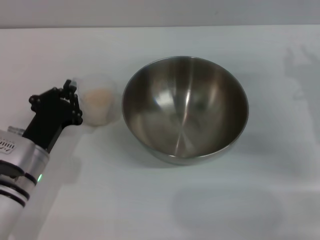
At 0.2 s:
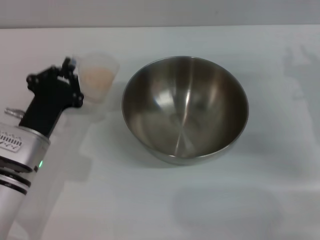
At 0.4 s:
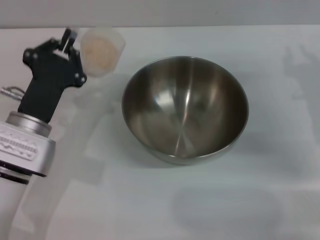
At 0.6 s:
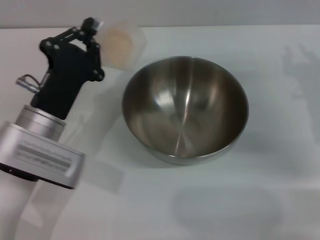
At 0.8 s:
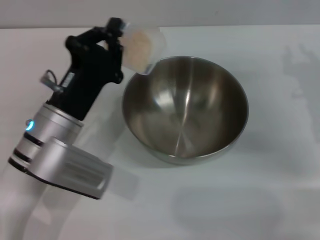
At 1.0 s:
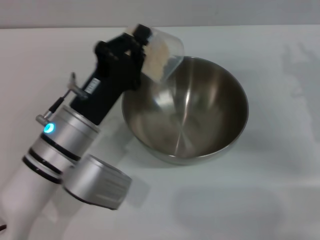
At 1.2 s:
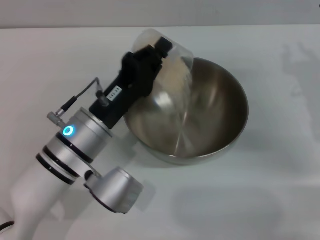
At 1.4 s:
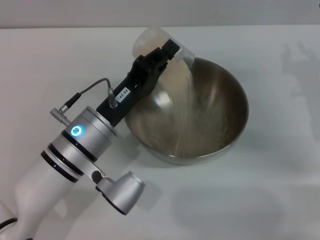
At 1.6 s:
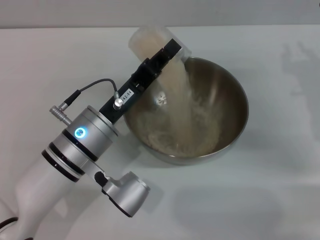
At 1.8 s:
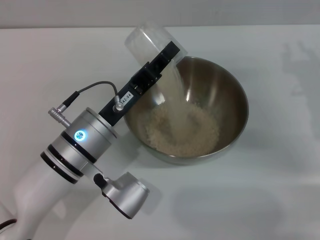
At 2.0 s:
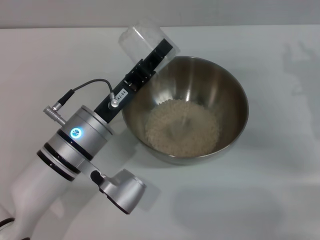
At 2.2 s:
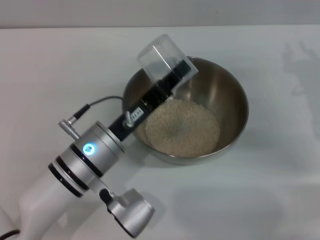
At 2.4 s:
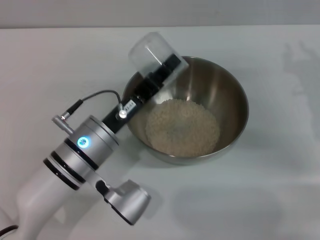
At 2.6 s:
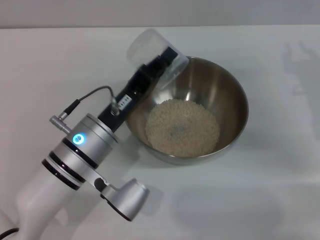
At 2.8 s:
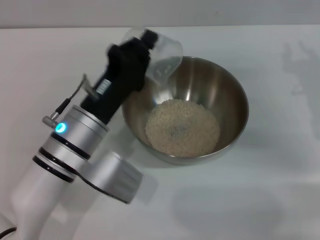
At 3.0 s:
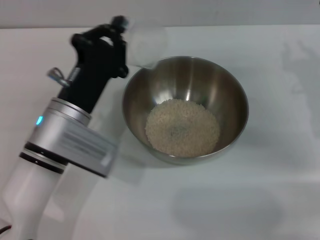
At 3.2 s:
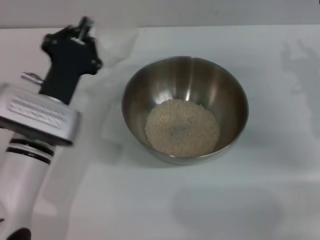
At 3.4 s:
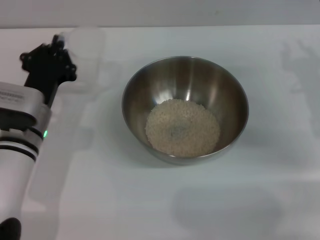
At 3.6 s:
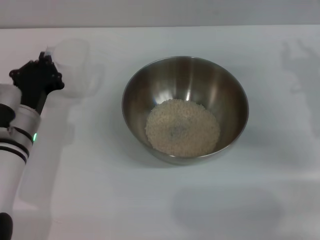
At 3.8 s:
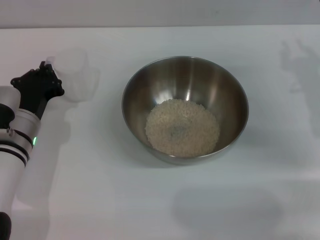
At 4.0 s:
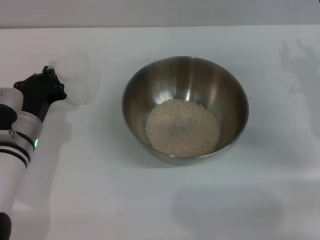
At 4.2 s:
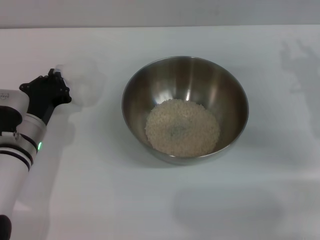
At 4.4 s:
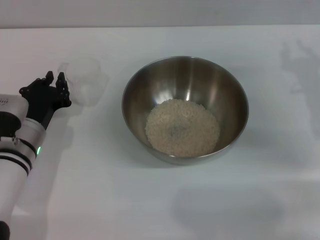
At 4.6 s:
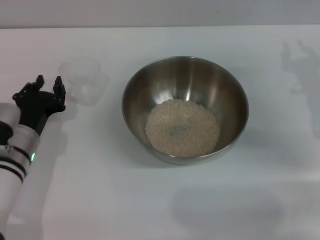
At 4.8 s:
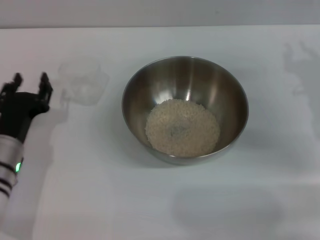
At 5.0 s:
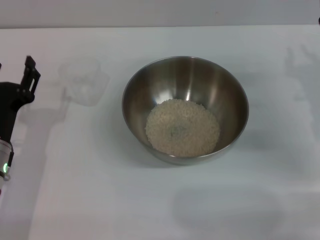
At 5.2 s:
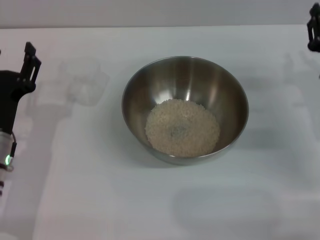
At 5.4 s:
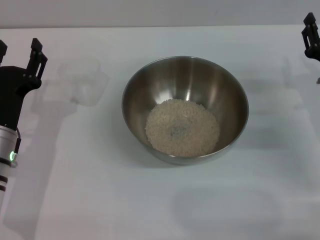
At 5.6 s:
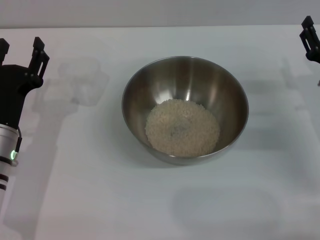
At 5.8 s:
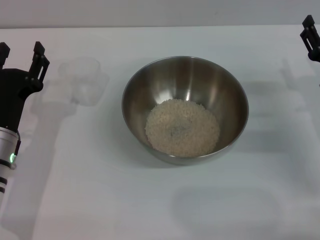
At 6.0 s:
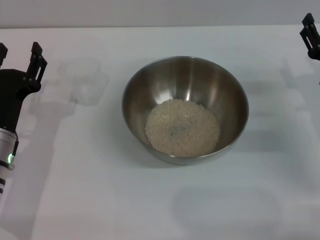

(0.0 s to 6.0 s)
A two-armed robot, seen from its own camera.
Task of the whole recording: Place the bowl in the middle of the table with one hand and pour the rice from the grain cup into it with the other hand.
Step, 0.4 s - 2.8 s: Pour the rice from the cup into the bowl with the left gripper.
Step, 3.0 s - 4.6 s: Place the cup on the table with the left gripper.
0.0 s - 1.6 s: The left gripper shifts about 10 cm to the right and upward.
3.0 s - 4.4 s: The left gripper travels to the left and downward by roughly 10 cm.
4.4 s - 6.0 s: The left gripper changes place by approximately 5 cm, and opens its fingers. The right gripper goes some 5 cm downward, and opens its fingers.

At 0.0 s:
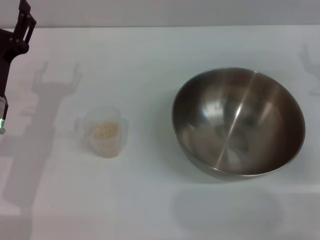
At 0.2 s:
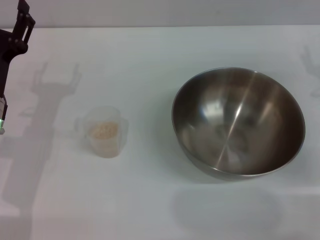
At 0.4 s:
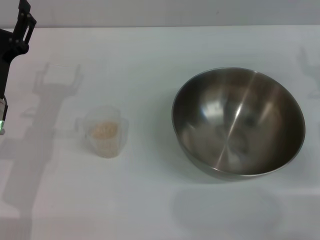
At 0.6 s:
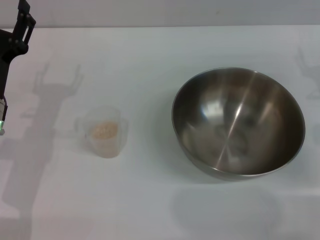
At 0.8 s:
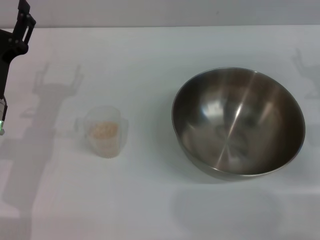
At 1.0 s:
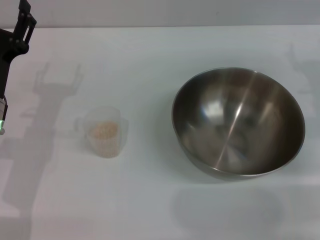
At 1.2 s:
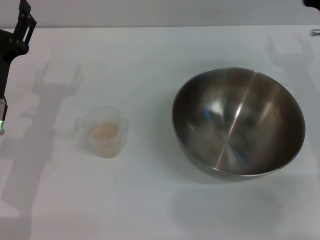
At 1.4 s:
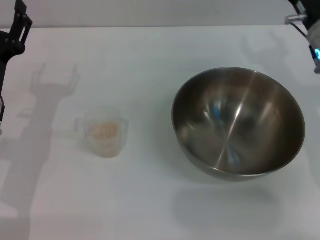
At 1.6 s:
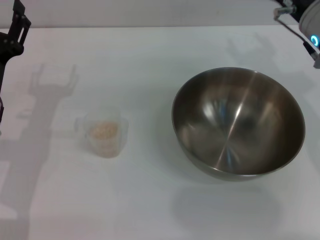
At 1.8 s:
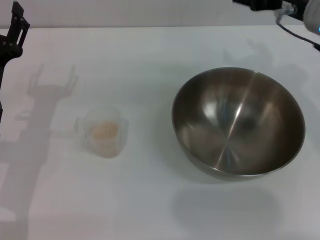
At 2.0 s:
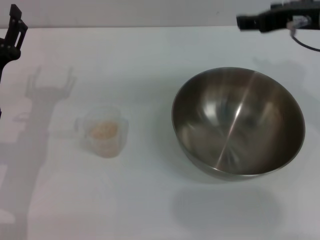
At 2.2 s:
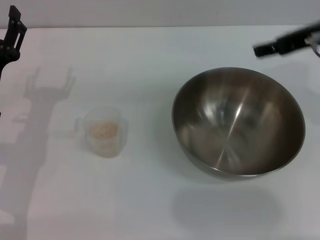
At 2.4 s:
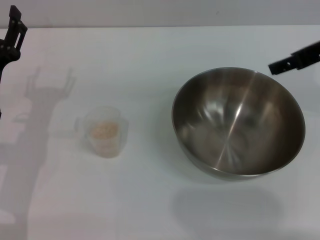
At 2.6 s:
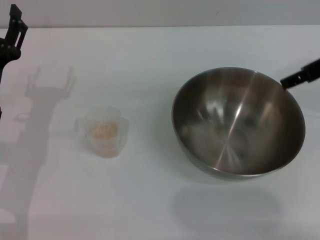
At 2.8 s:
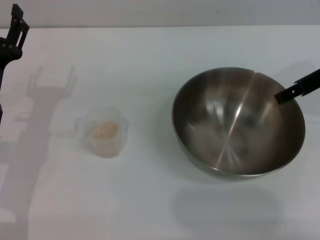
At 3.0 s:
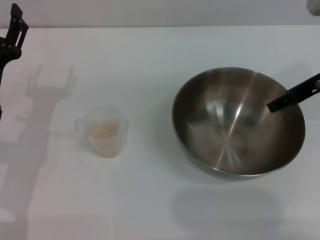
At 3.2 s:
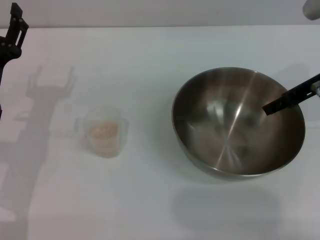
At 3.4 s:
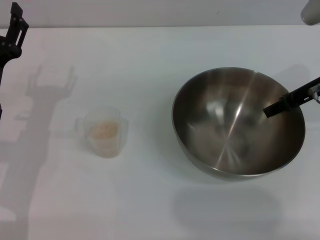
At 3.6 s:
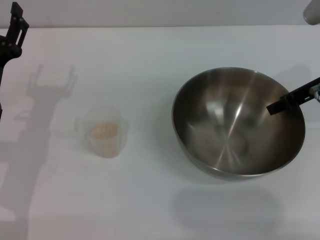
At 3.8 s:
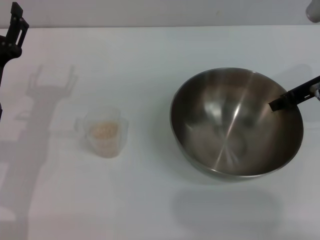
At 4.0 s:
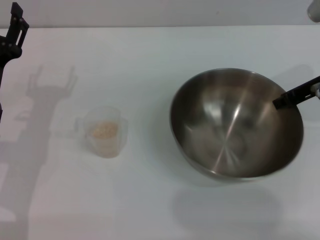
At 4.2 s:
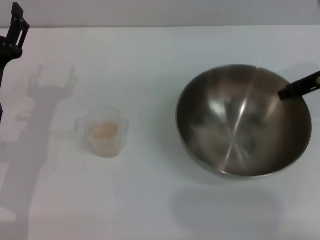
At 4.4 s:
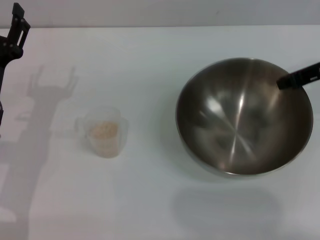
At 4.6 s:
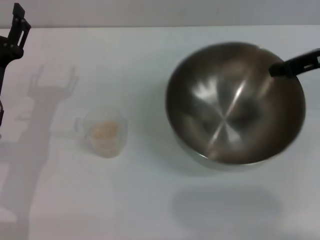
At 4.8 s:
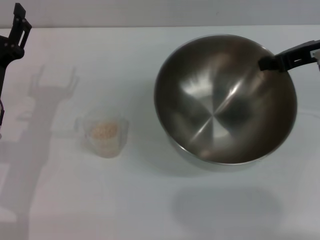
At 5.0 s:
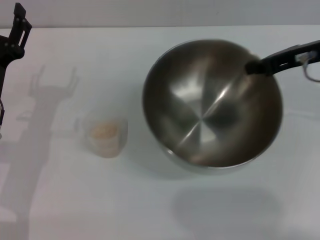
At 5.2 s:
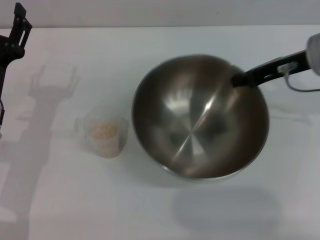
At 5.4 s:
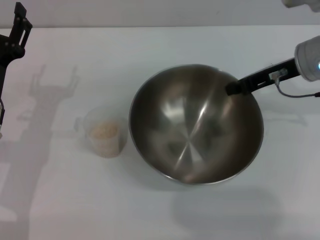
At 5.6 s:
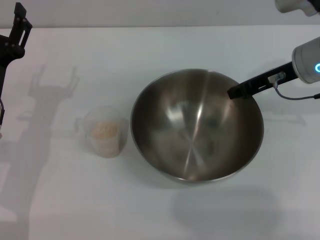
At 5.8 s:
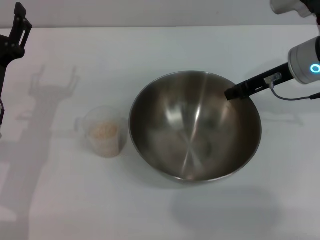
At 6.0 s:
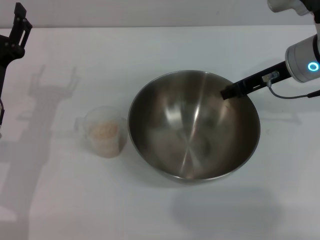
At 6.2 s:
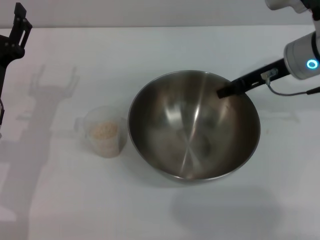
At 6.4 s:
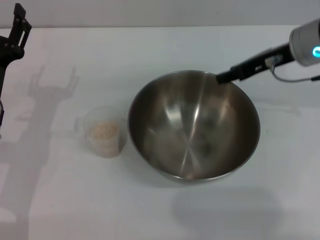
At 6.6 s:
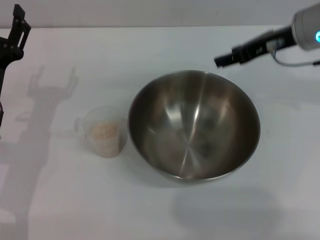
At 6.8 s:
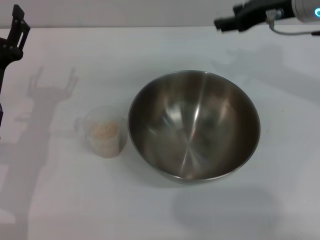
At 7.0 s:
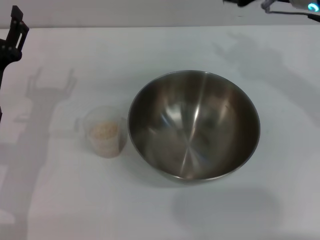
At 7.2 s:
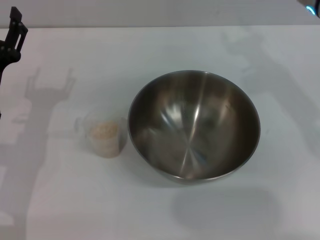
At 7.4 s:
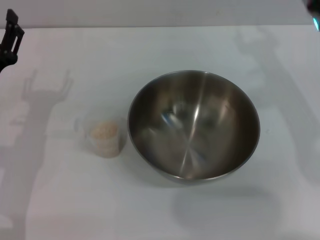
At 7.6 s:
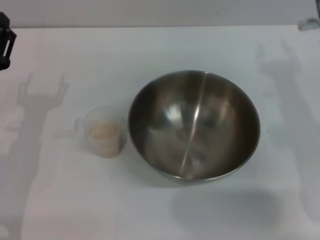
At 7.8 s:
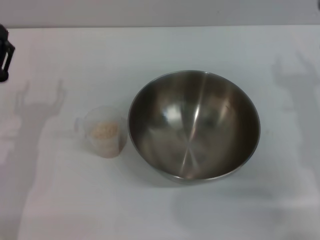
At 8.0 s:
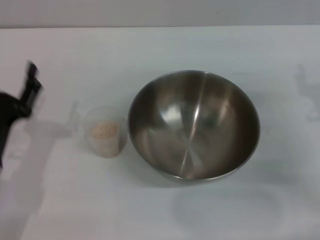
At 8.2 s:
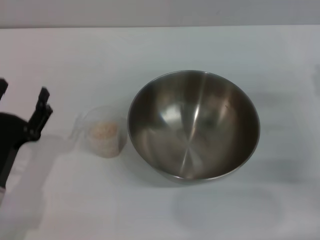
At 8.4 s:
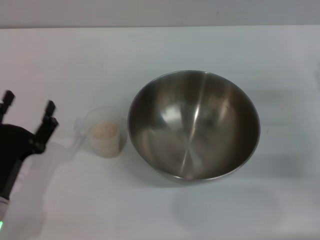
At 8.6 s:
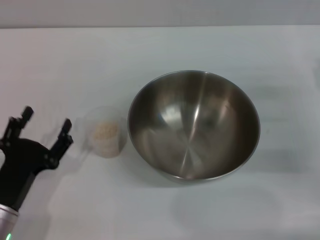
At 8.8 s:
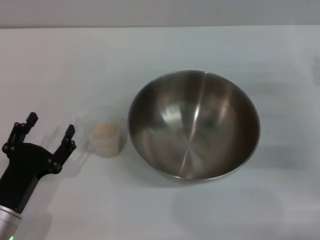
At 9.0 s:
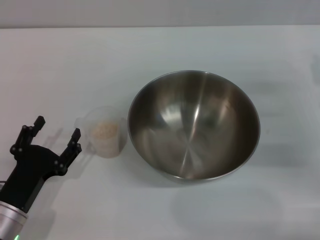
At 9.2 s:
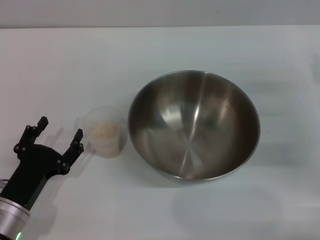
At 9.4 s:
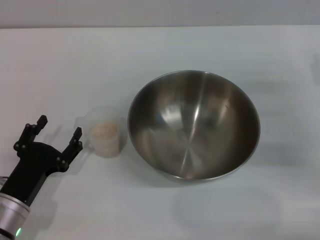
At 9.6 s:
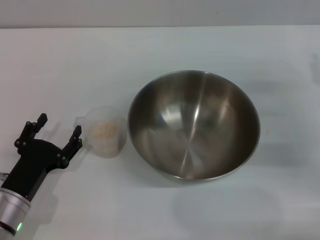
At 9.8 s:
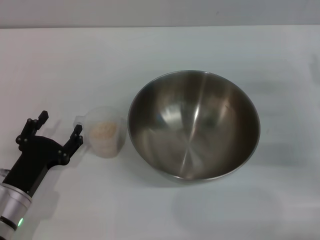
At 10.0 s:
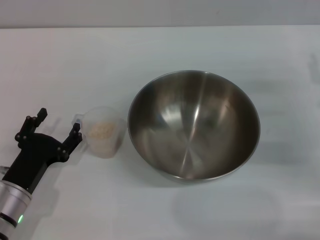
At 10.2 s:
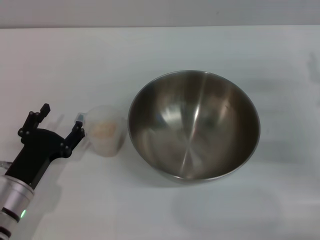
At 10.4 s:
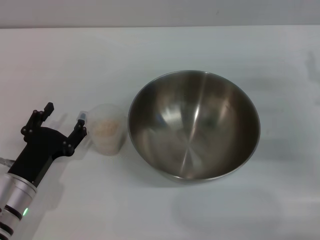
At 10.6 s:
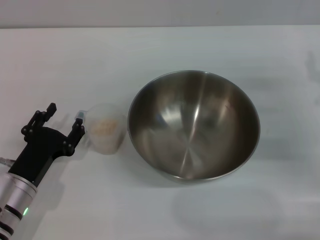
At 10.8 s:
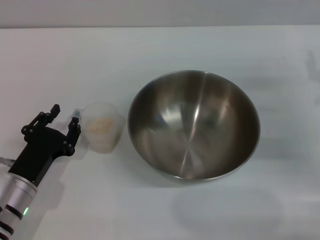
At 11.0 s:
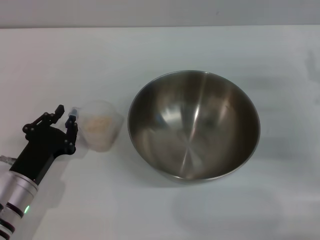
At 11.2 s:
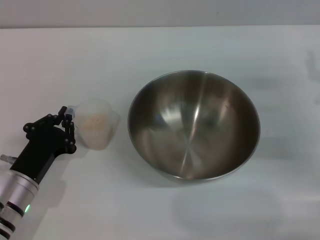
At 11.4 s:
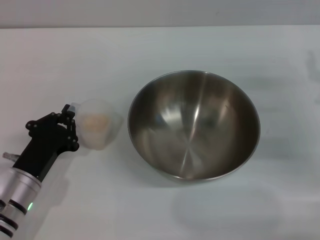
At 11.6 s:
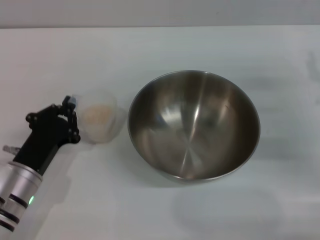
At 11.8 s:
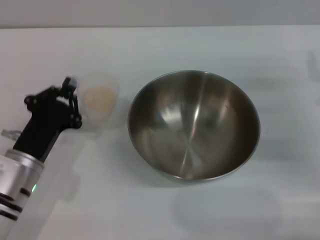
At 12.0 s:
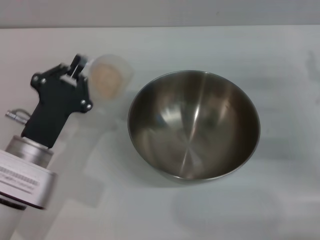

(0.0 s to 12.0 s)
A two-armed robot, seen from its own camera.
Task of the whole recording: Place the bowl in the middle of the table with one hand and pour the rice from the grain cup into it with the other hand.
Step, 0.0 s - 4.6 s: Pick up the bowl with the right gripper.
Step, 4.8 s - 6.6 s: Place the bowl in the center of view with the right gripper.
Step, 6.8 s - 11.6 s: Pick up the cup with rice in it with the left gripper.
0.0 s - 1.6 s: The right gripper heads to the left and upward, covering roughly 15 cm.
1.6 s - 3.0 s: The right gripper heads to the right, covering about 5 cm.
3.0 s - 4.4 s: The right gripper closes up.
4.4 s - 6.0 s: The right gripper goes about 5 cm to the left.
6.0 s - 7.6 s: The right gripper shifts roughly 5 cm backward, and opens its fingers.
7.6 s - 9.0 s: The right gripper heads to the right and downward, covering approximately 10 cm. The left gripper heads backward and downward, covering about 10 cm.
9.0 s - 10.4 s: The grippers move only a little.
10.4 s - 12.0 s: The left gripper is displaced upward by roughly 5 cm, and closes up.

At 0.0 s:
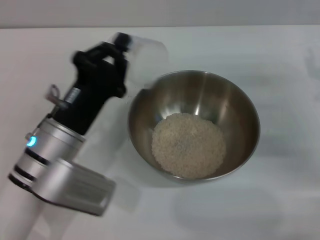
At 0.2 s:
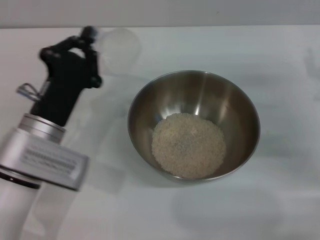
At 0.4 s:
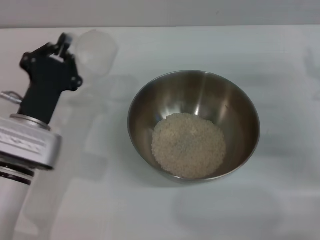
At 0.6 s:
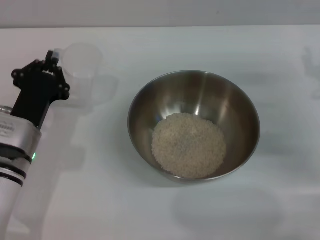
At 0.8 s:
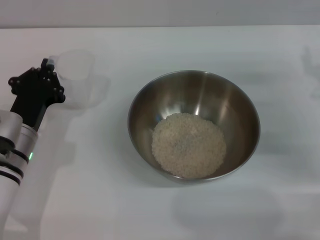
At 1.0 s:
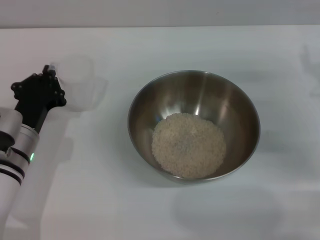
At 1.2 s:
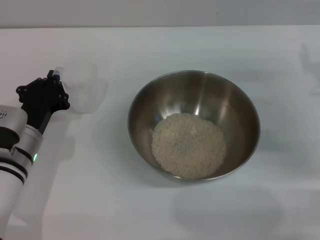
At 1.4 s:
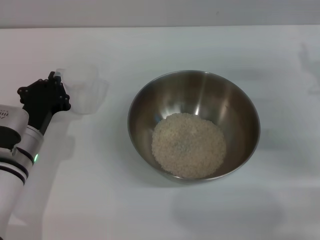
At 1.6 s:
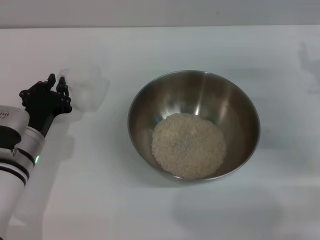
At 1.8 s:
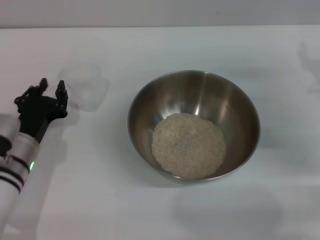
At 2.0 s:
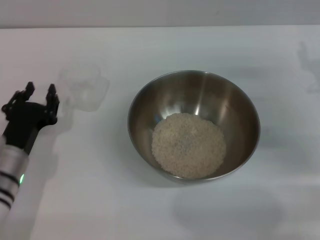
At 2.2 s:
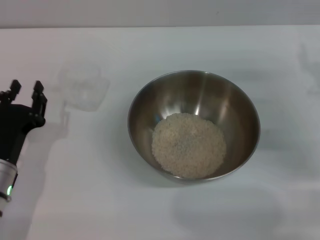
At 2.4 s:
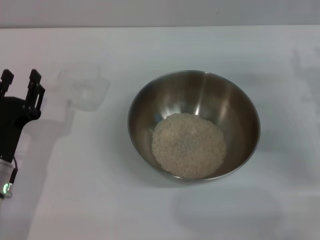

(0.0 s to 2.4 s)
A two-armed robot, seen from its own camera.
Task of the whole recording: Place the bowl in the middle of the table with one hand and pour the rice from the grain cup into it with the other hand.
Step, 0.4 s - 2.2 s: Place the cup on the table with the left gripper.
0.0 s - 1.2 s: The left gripper moves to the left and downward, roughly 10 cm.
1.2 s - 2.4 s: The left gripper is displaced backward by about 5 cm, and opens.
